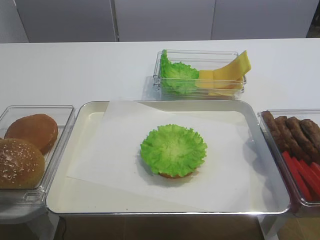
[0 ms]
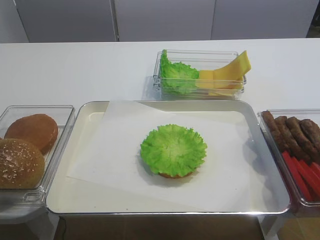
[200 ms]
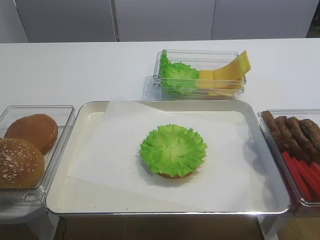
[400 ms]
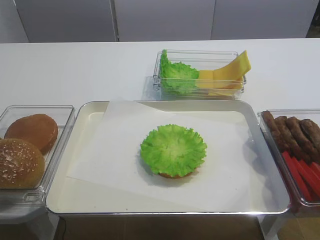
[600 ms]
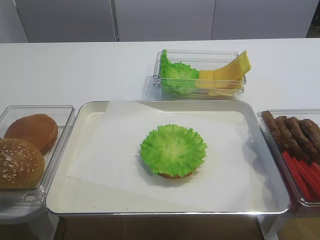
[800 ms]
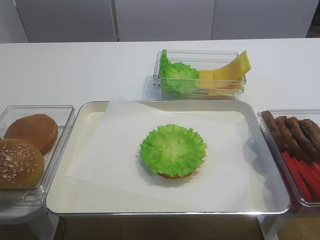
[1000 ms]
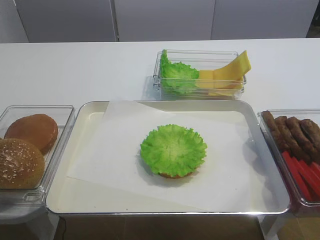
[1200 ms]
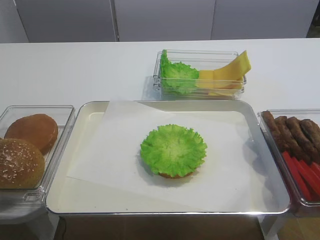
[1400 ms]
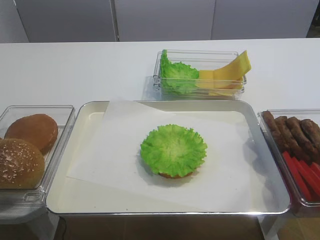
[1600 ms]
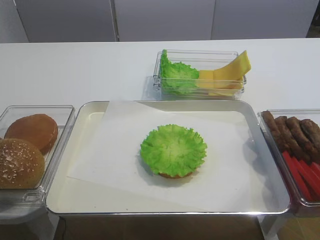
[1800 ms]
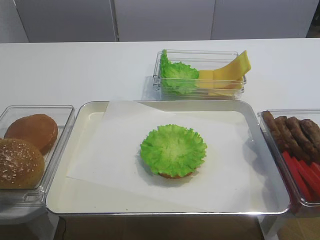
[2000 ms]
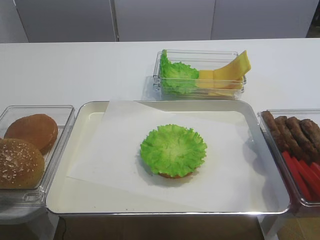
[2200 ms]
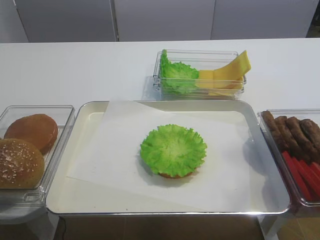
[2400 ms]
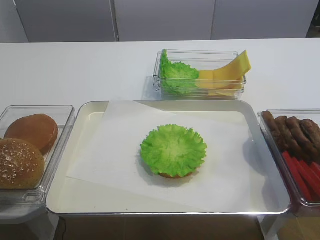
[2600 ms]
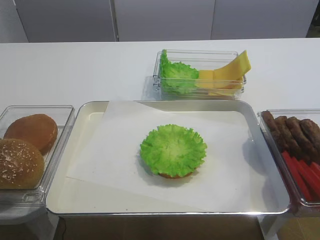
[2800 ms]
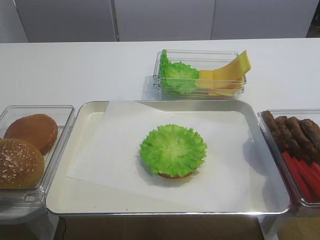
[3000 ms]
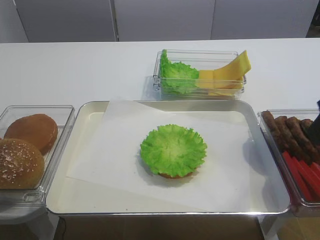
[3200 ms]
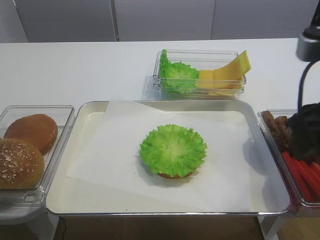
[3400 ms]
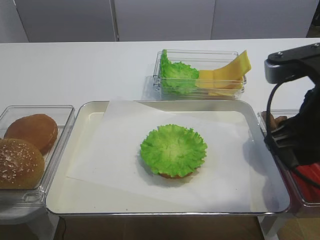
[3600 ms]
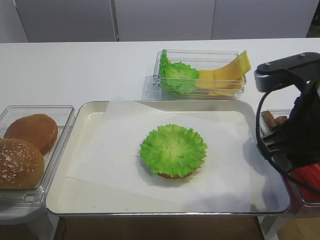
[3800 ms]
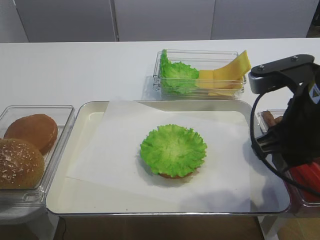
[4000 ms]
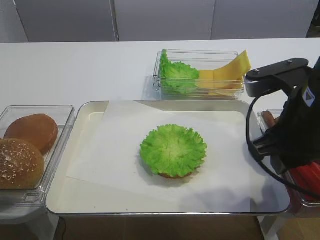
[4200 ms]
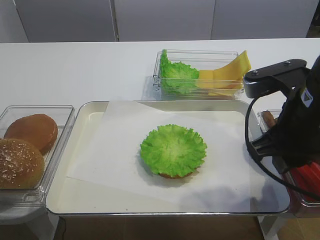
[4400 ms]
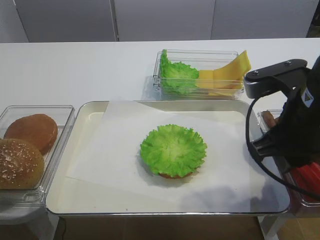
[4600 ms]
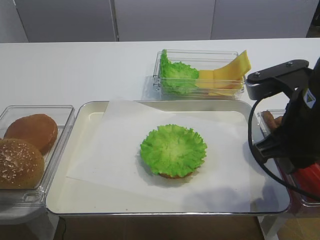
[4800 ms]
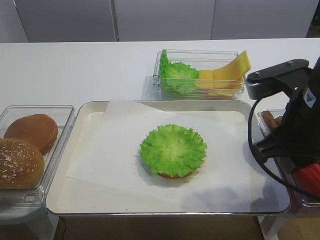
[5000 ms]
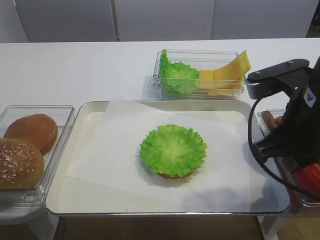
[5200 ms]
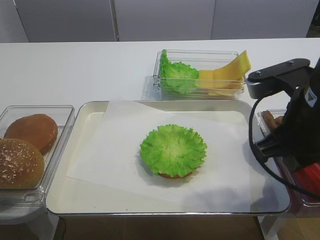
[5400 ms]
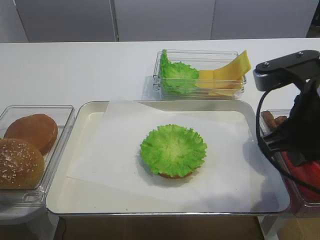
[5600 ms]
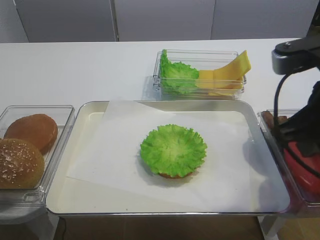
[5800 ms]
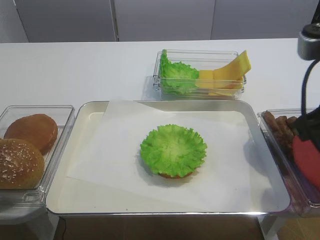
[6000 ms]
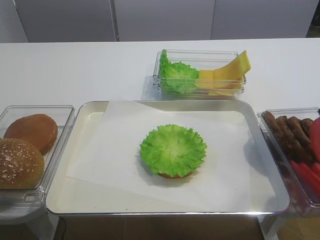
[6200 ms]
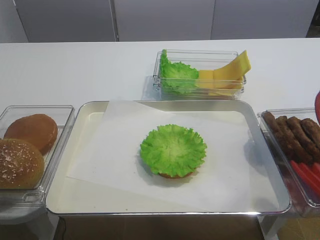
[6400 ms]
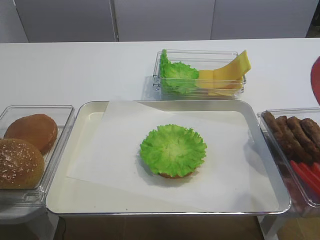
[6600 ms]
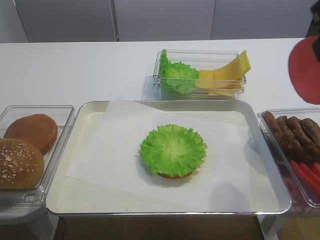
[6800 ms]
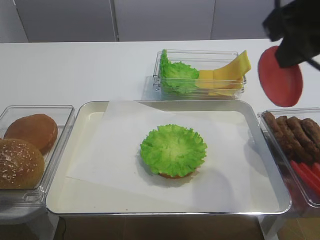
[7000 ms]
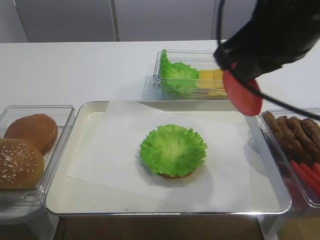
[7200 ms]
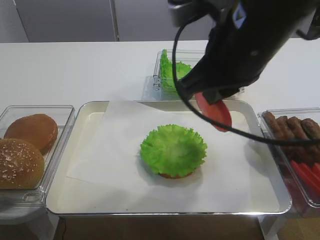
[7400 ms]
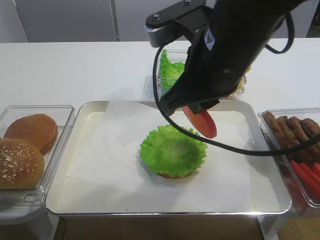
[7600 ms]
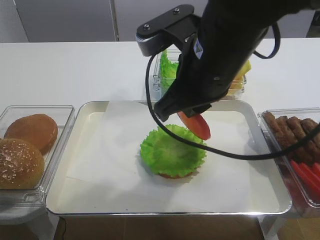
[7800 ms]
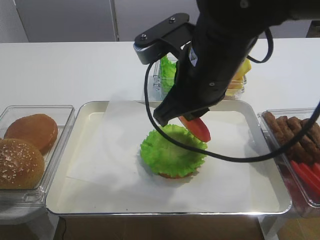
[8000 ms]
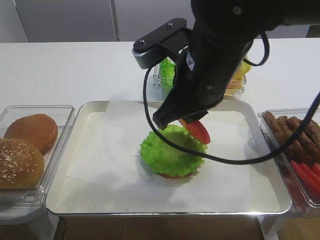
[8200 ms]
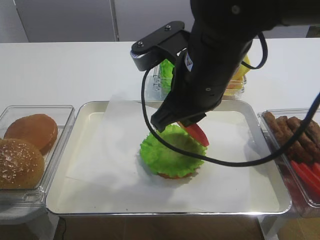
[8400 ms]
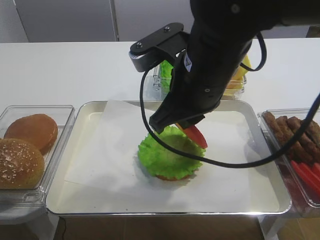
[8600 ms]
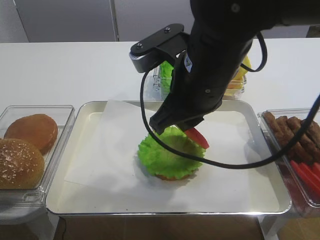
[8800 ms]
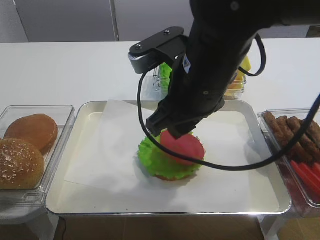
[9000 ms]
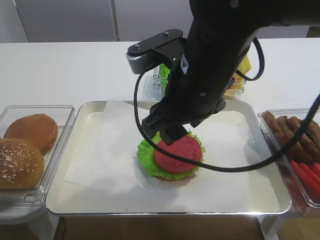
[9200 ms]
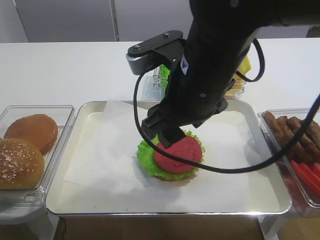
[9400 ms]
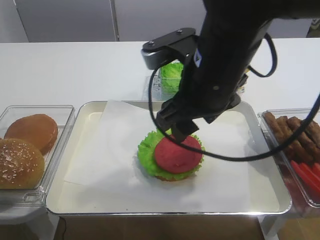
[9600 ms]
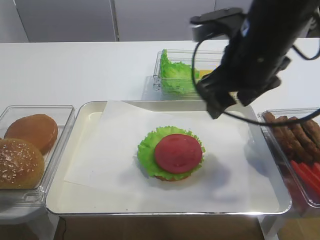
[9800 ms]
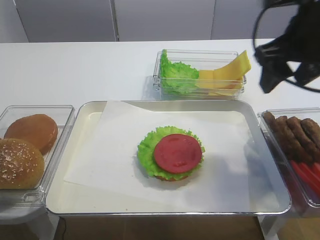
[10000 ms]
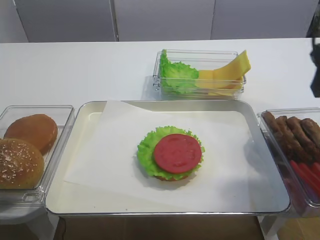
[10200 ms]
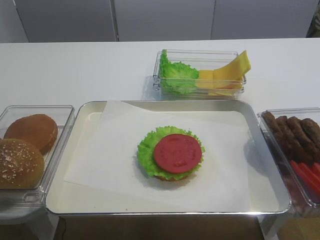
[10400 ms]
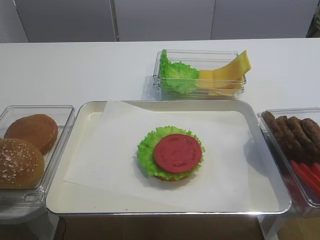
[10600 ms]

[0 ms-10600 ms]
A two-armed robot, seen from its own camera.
Step, 0 ms to 5800 ms: Pick up the tomato slice with the right gripper.
Step, 6000 ms to 9200 ms: Place the tomato slice on the lettuce leaf with the right gripper.
1600 ms to 3000 ms: The right gripper travels forward by some 15 cm.
3000 ms to 4600 ms: The right gripper heads downward and to the left, covering approximately 10 cm, and closes.
4600 ms to 6000 ms: The right gripper is displaced upward by about 5 cm.
6000 ms to 7600 ms: The right gripper goes roughly 15 cm to the left and forward.
7600 ms to 9000 ms: The right gripper opens.
9000 ms to 10600 ms: The right gripper is displaced to the right and backward by approximately 25 cm.

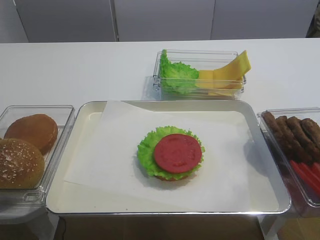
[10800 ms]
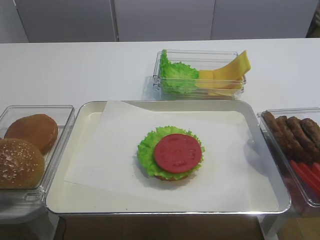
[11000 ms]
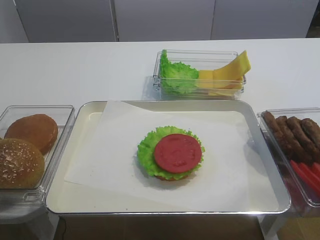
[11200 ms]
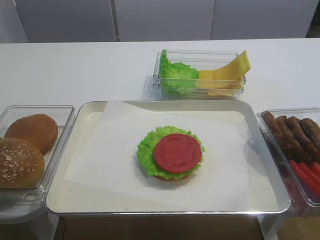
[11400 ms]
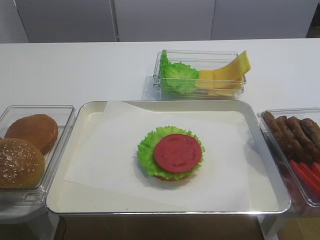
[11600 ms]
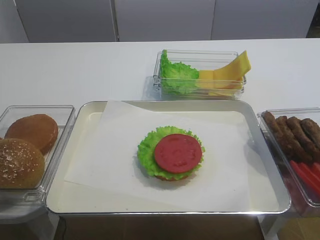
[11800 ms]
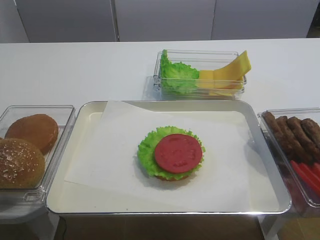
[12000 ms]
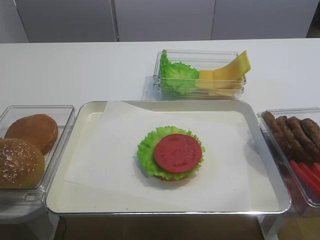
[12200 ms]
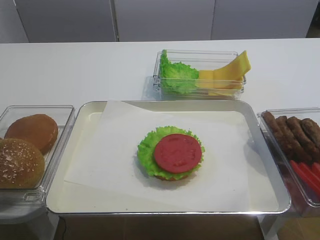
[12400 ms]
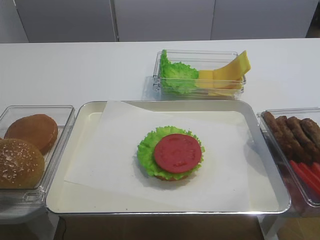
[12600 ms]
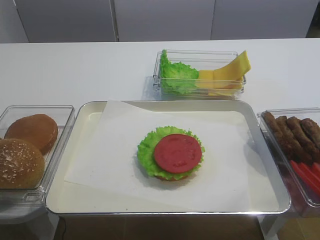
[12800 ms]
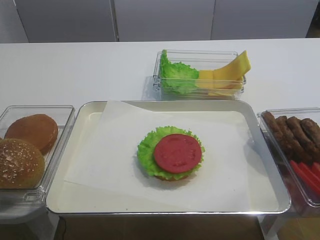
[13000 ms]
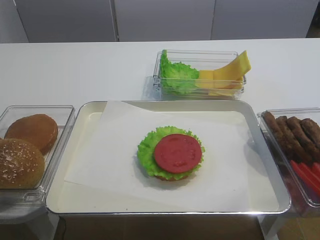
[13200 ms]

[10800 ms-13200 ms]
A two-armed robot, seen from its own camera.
12000 ms to 13200 ms: The two grippers keep their place.

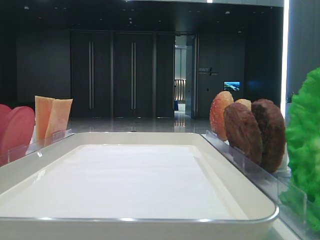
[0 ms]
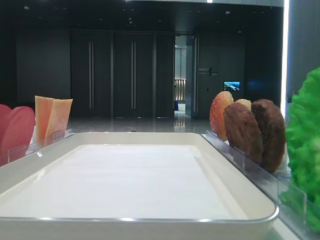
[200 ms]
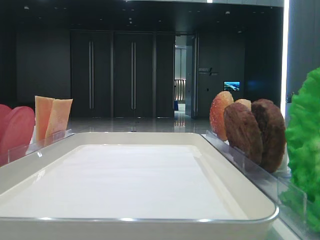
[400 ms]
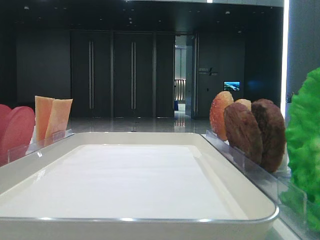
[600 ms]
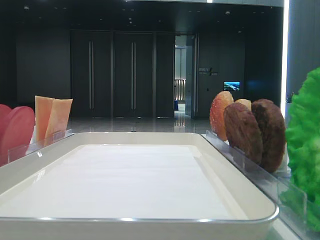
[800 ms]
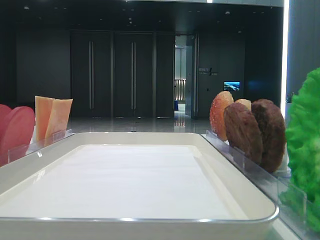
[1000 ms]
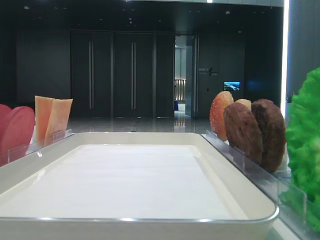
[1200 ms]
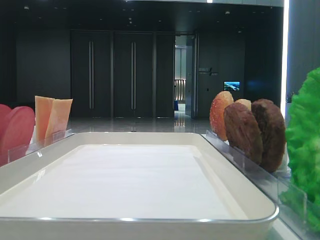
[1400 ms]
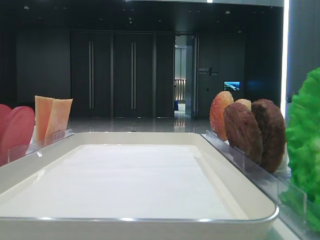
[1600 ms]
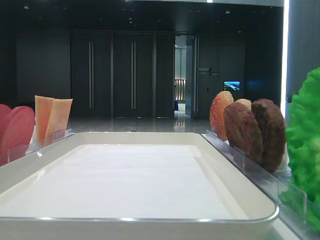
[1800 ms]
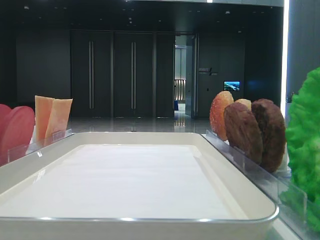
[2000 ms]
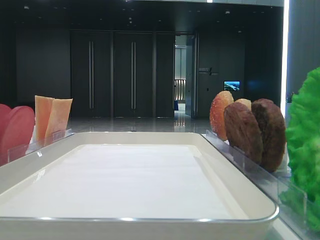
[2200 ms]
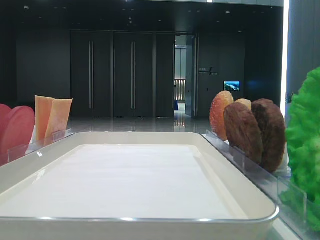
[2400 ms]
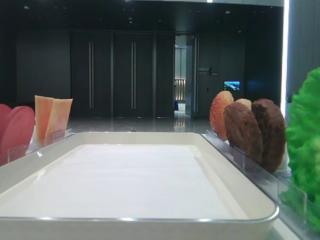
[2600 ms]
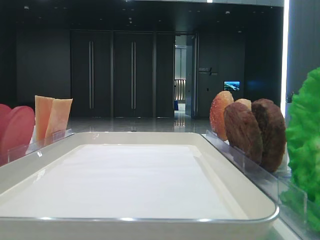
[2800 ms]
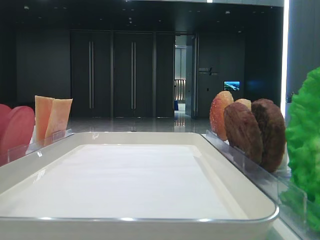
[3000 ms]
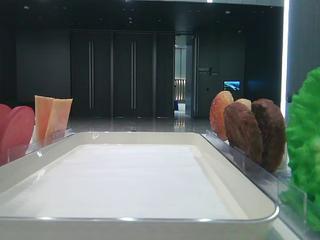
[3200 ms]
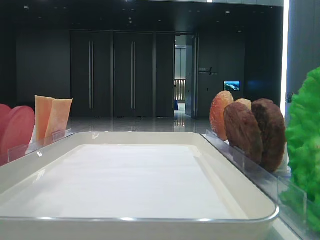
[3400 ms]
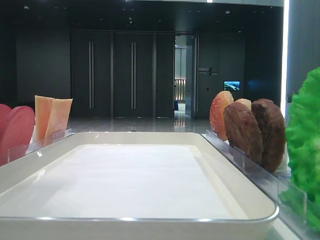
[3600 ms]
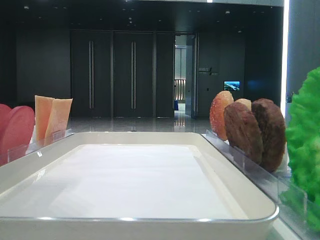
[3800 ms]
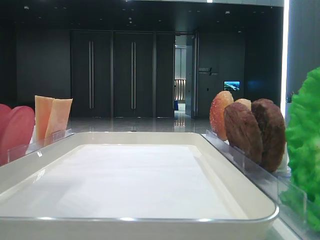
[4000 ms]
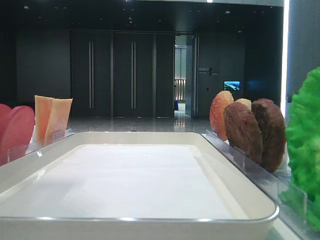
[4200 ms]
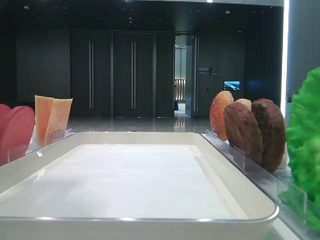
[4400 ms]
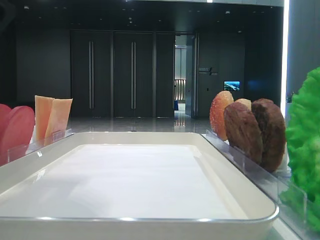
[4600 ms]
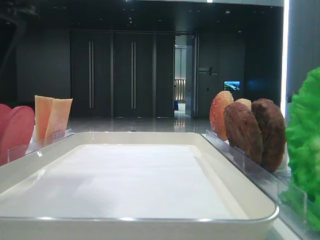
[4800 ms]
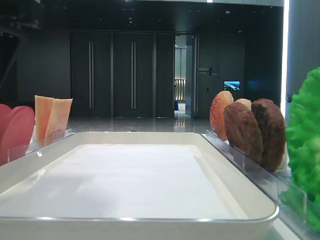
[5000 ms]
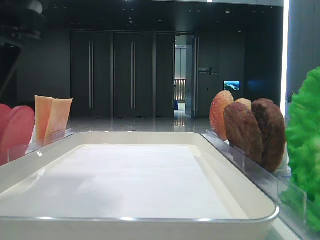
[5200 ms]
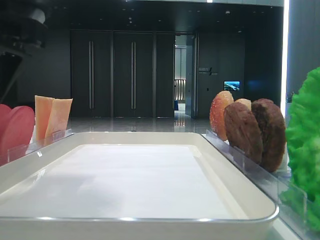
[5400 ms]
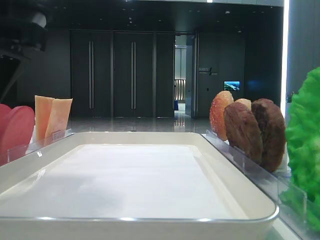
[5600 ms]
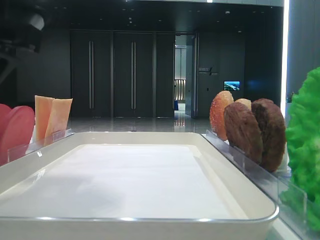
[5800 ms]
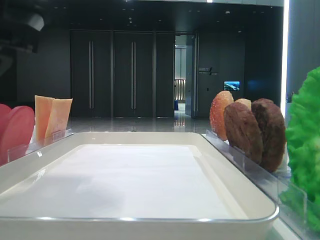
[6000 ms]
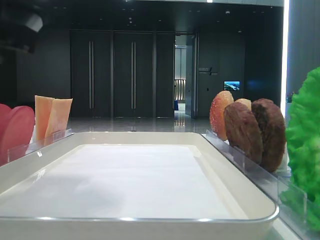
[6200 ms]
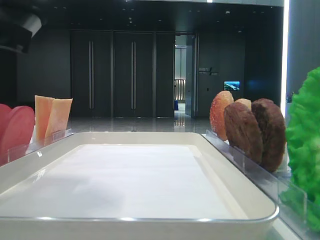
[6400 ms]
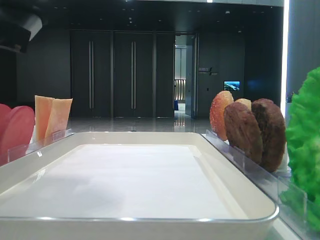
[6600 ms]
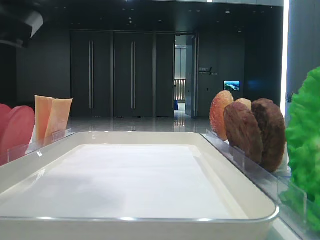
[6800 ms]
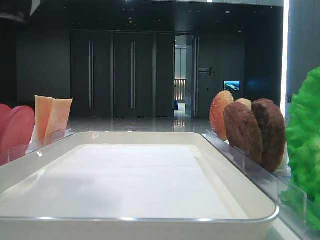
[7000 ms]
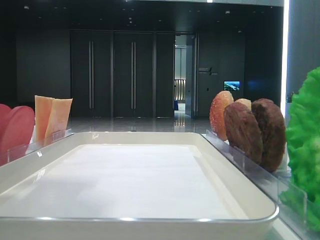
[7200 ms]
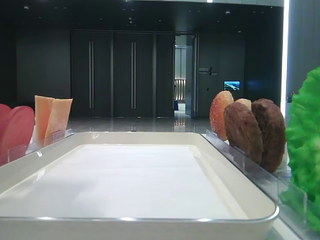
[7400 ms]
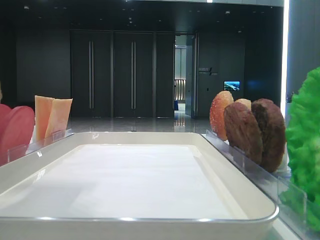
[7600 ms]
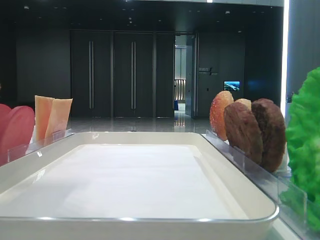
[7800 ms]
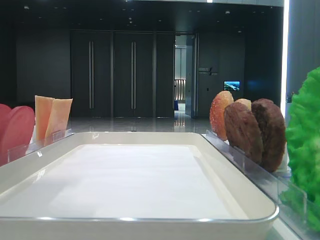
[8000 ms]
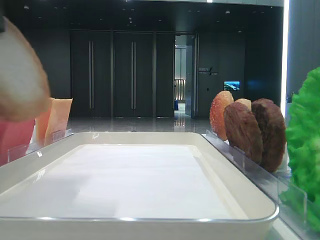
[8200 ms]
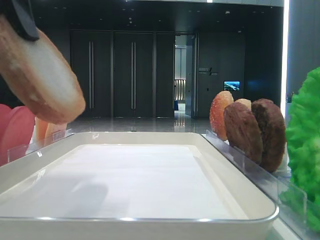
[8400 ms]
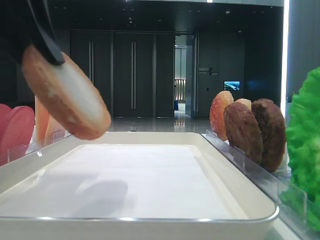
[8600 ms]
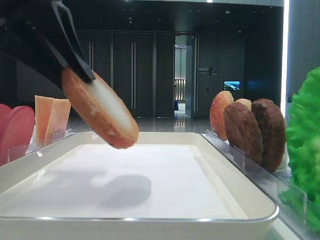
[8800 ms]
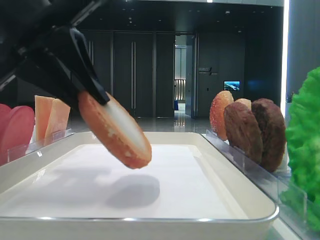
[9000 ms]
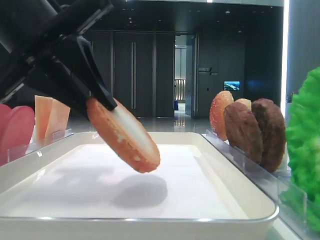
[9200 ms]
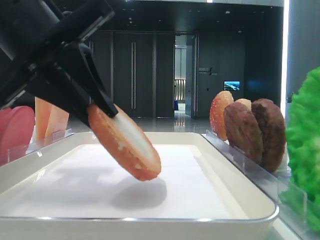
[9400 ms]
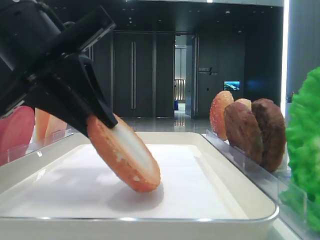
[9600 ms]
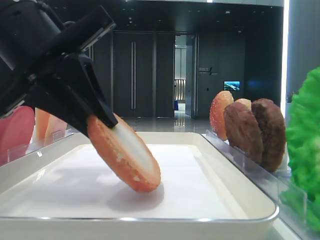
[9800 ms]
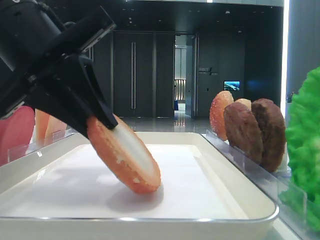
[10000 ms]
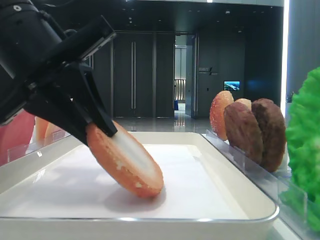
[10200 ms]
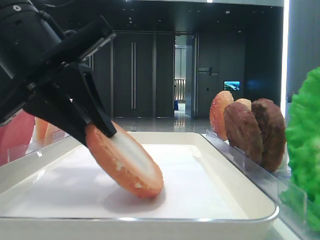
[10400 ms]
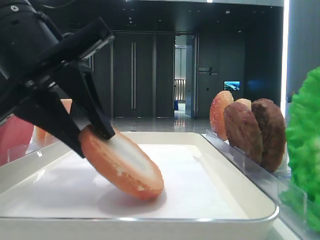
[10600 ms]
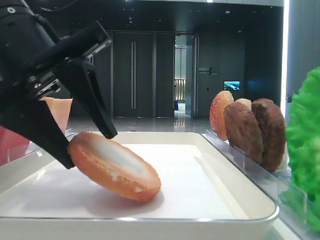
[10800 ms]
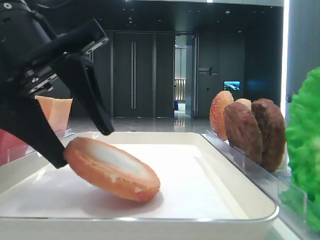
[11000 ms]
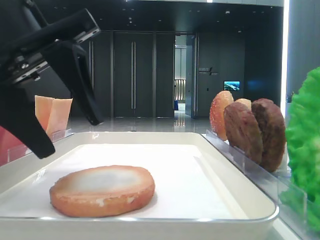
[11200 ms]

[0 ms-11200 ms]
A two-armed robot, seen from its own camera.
Step, 6800 ms to 11000 ms: Place the bottom bread slice on the tray with the left hand.
1600 ms to 3200 ms: The left gripper is displaced forward and to the right by about 15 cm.
3200 ms to 4800 ms: The left gripper heads downward and to the right, covering roughly 10 cm.
6400 ms to 8000 ms: The left gripper heads upward, covering approximately 5 cm.
8000 ms to 9600 ms: The left gripper shifts about 10 cm downward and forward.
9600 ms to 11200 ms: The left gripper opens.
